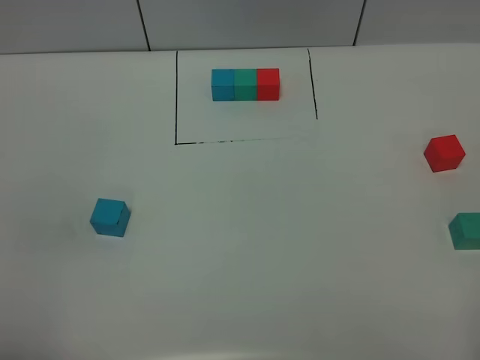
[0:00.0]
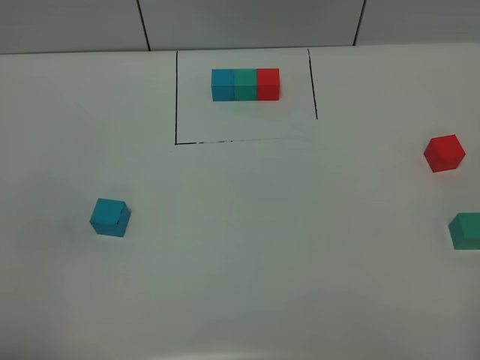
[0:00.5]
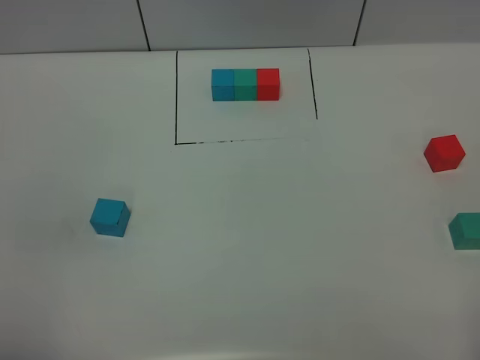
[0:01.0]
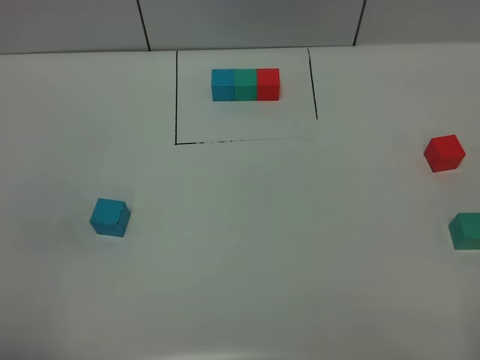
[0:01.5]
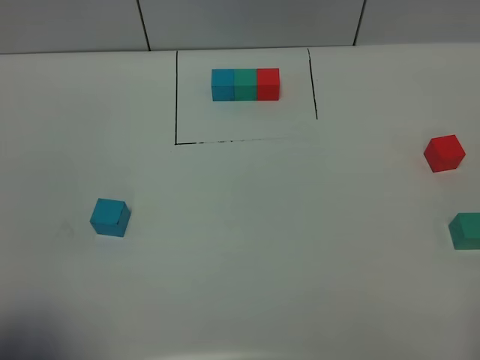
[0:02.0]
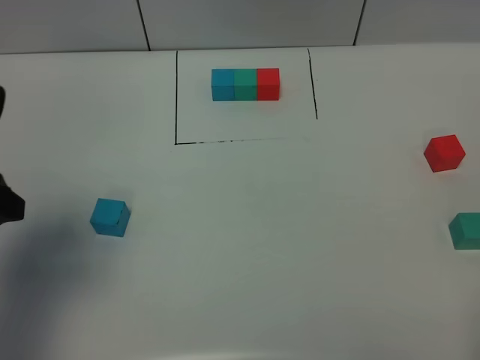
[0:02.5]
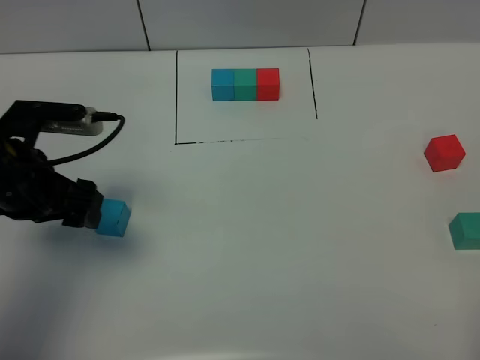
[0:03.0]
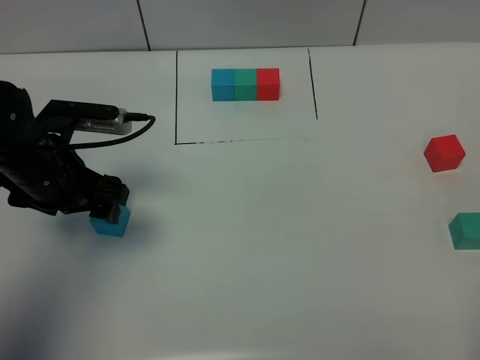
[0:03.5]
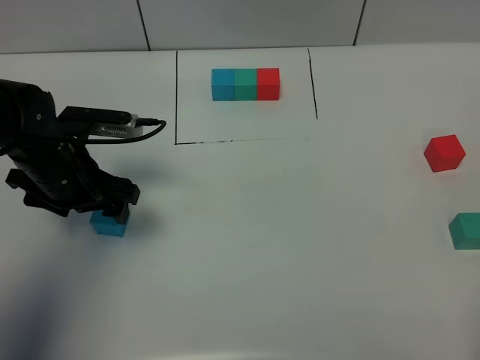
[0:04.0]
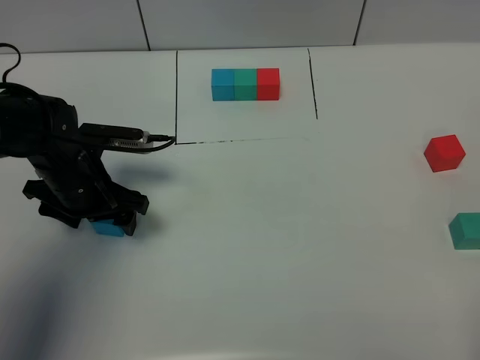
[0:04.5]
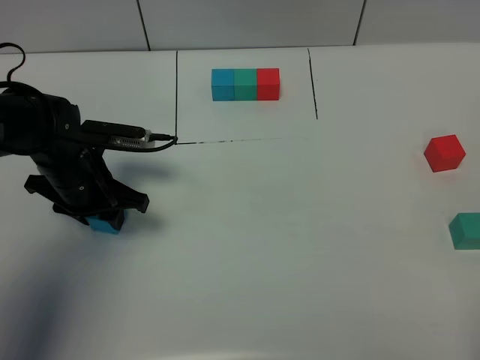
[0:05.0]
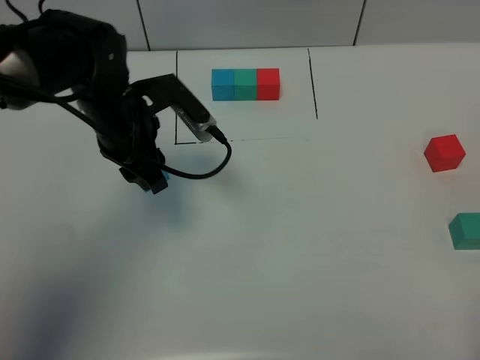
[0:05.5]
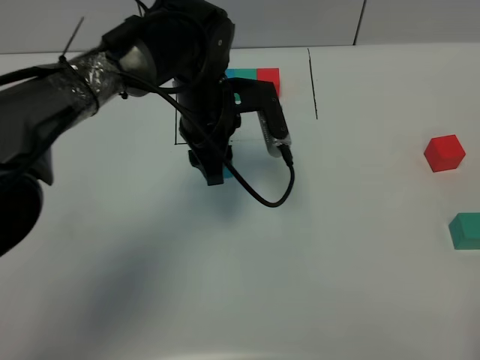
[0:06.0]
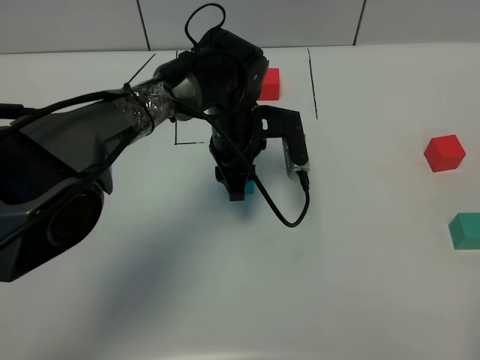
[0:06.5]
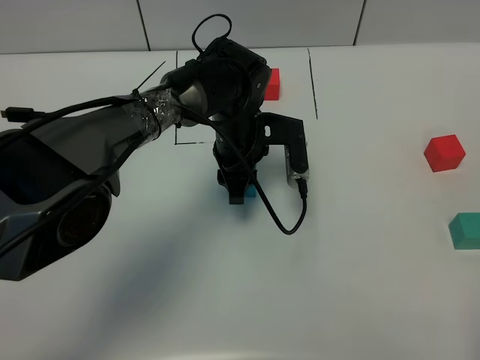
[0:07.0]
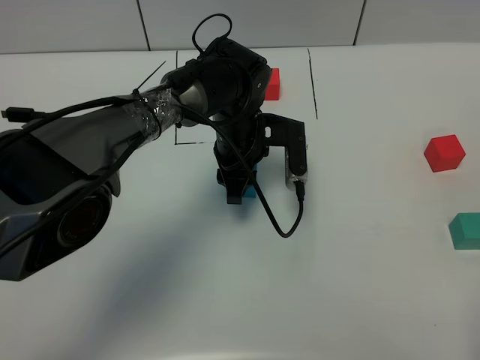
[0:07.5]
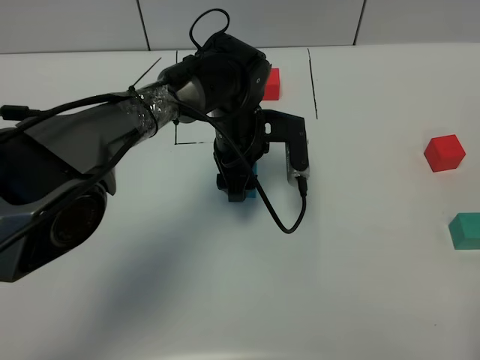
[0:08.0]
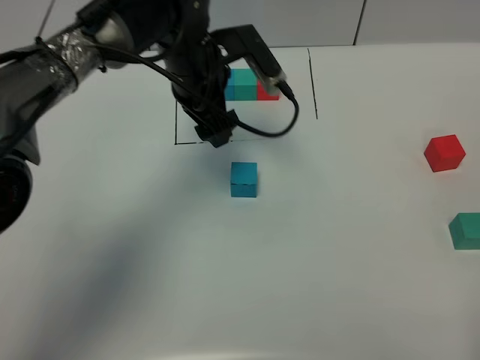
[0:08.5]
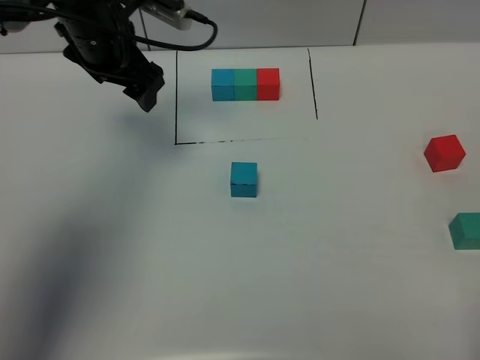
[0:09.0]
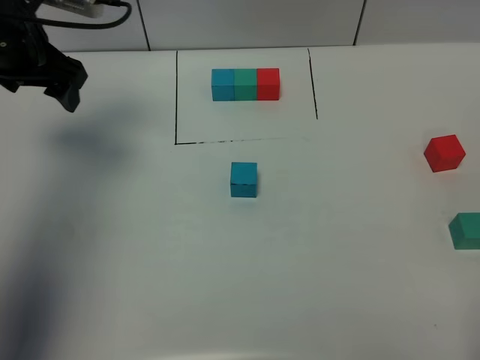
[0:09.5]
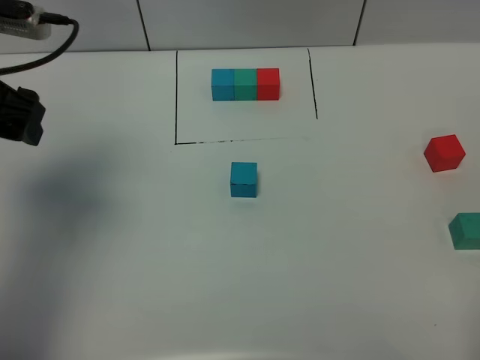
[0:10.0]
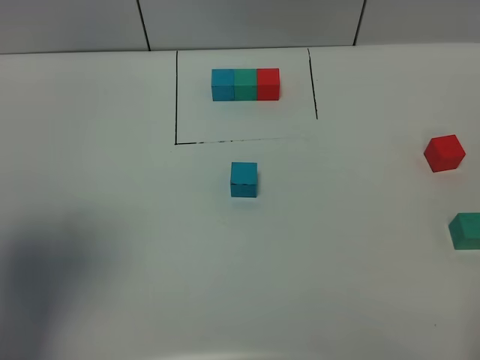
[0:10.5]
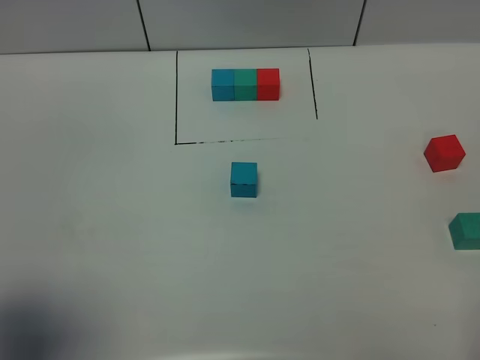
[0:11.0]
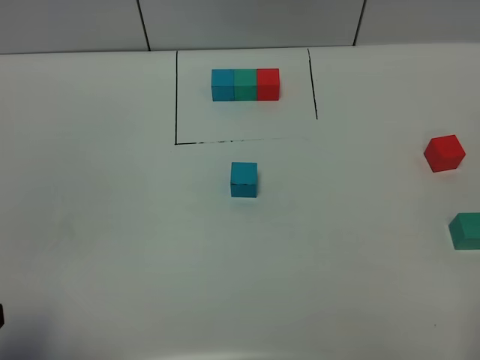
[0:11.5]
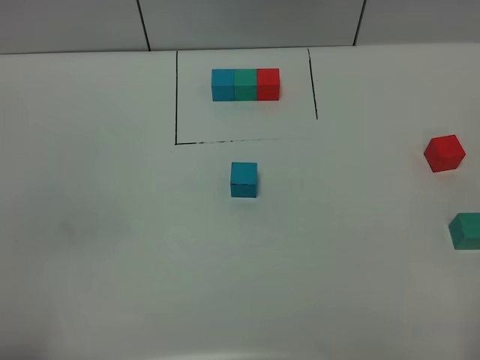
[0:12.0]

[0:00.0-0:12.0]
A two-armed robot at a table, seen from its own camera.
Task of the whole recording: According to the building block template in front, assemble the scattered blocks together.
Step, 0:00.0 to 0:07.5: Put the blue build block in the center of the table.
0:00.0 to 0:02.0: The left gripper heads forward, covering about 5 cm.
0:02.0 to 0:04.0: The left gripper heads forward and downward, covering some 30 cm.
0:04.0 to 0:06.0: The left gripper goes some 20 cm to the right and forward, and closes its fingers.
0:06.0 to 0:08.0: The left gripper changes place by approximately 5 cm, and opens.
0:08.0 to 0:10.0: The left gripper goes some 30 cm to the left and upward.
0:10.0 to 0:12.0: The left gripper moves backward, roughly 30 cm.

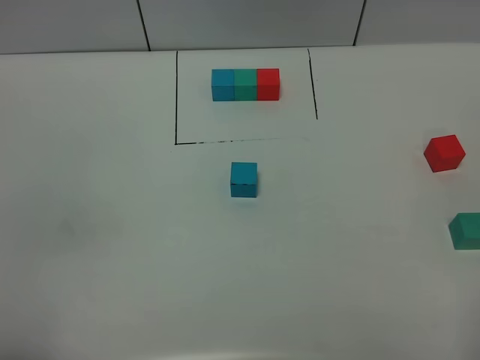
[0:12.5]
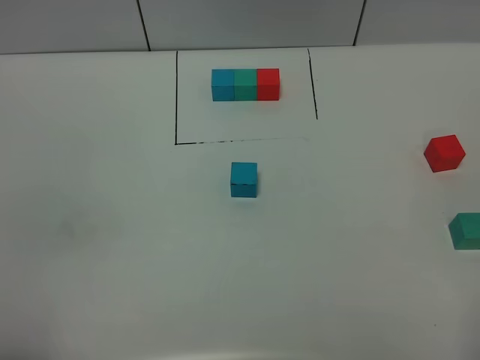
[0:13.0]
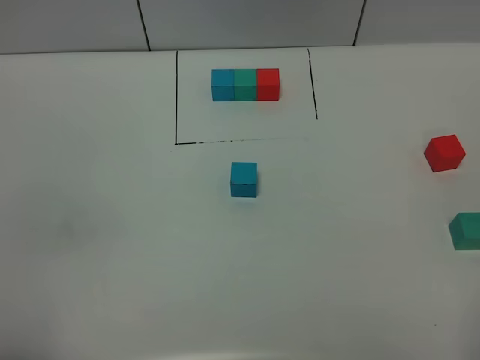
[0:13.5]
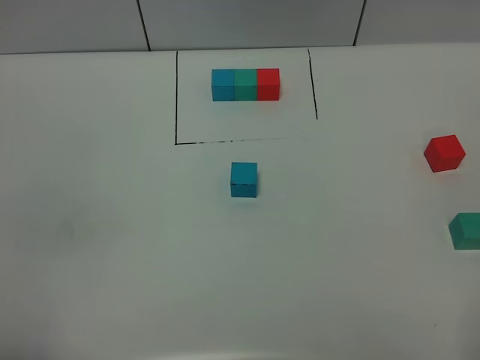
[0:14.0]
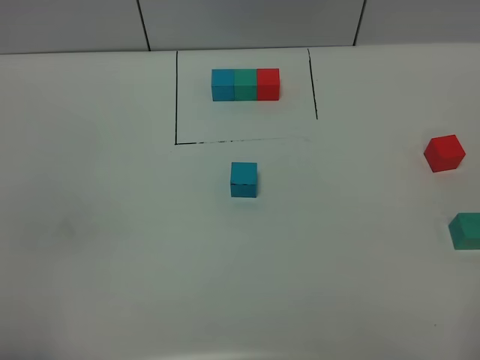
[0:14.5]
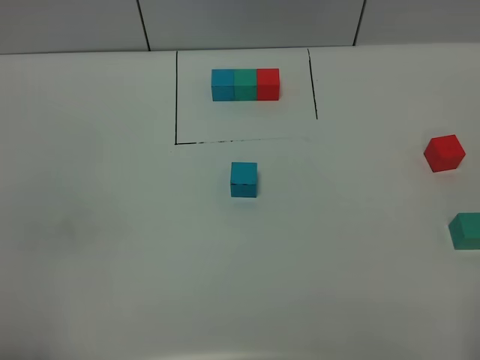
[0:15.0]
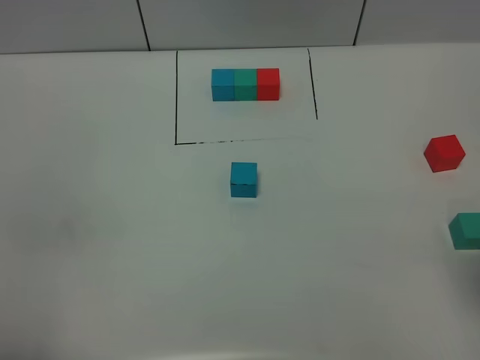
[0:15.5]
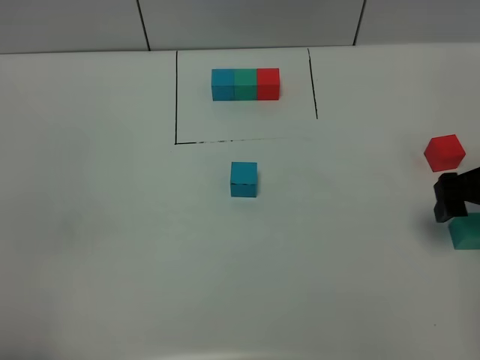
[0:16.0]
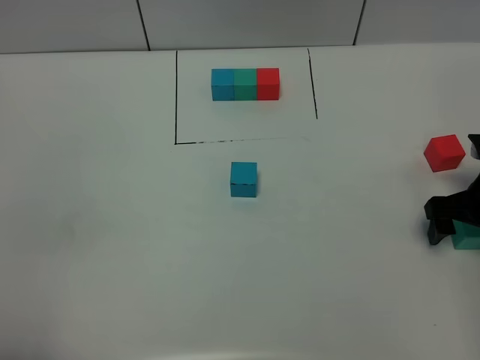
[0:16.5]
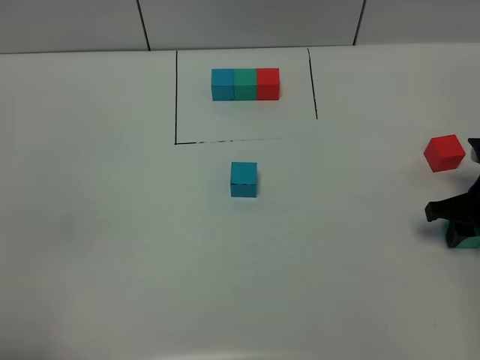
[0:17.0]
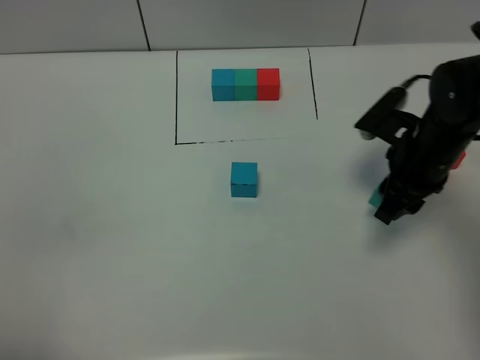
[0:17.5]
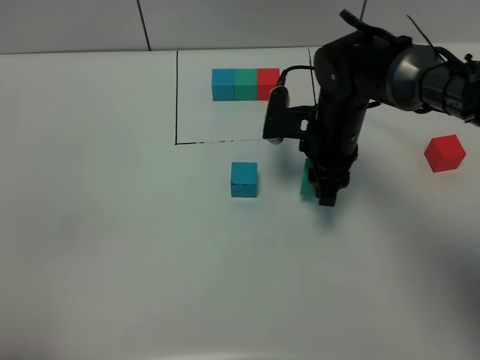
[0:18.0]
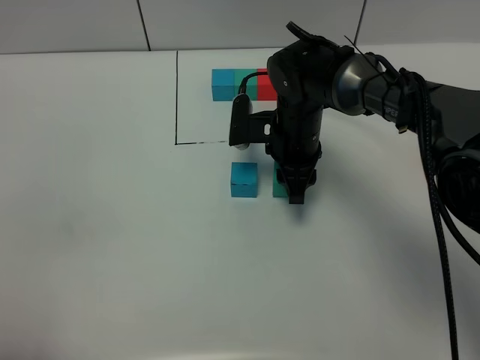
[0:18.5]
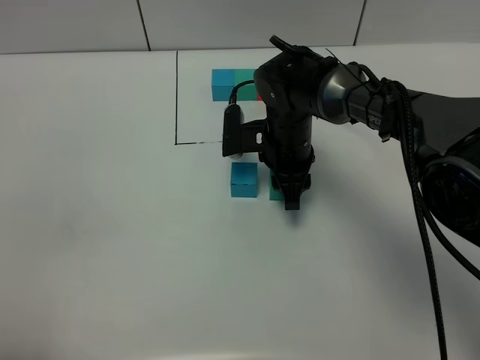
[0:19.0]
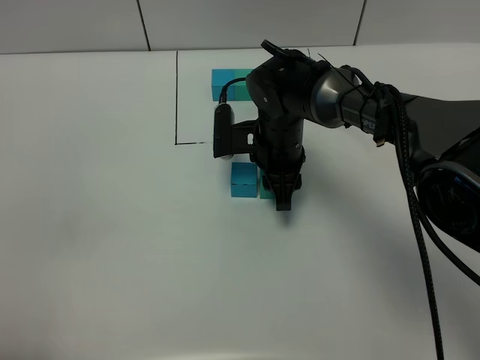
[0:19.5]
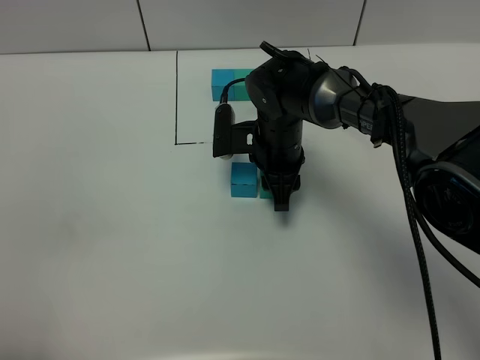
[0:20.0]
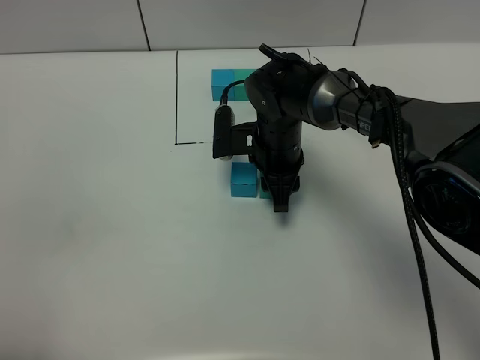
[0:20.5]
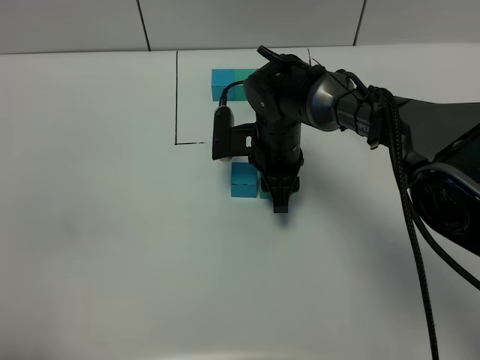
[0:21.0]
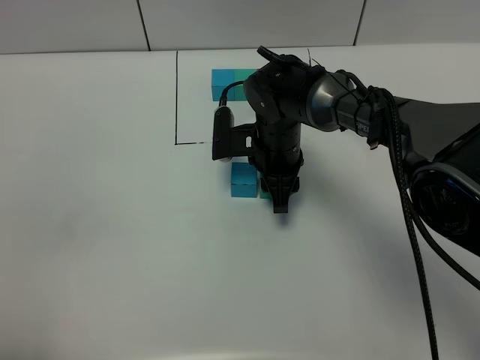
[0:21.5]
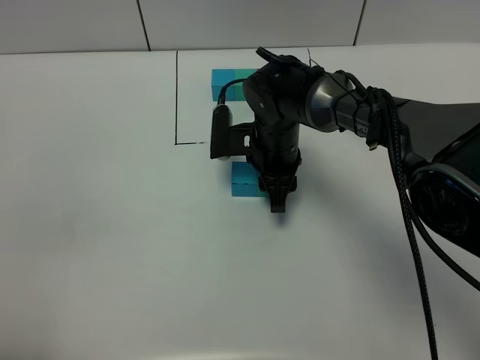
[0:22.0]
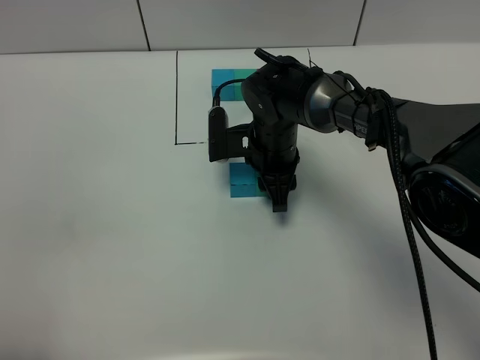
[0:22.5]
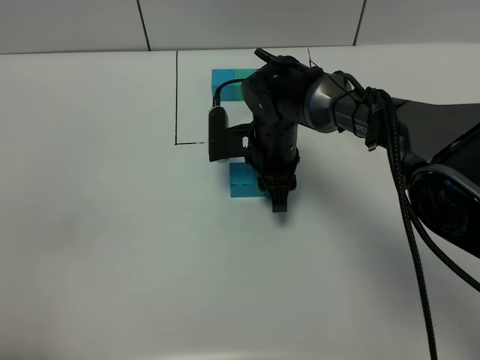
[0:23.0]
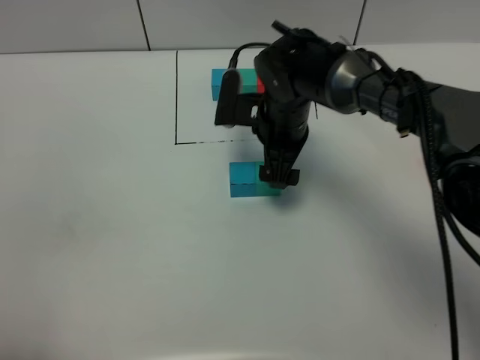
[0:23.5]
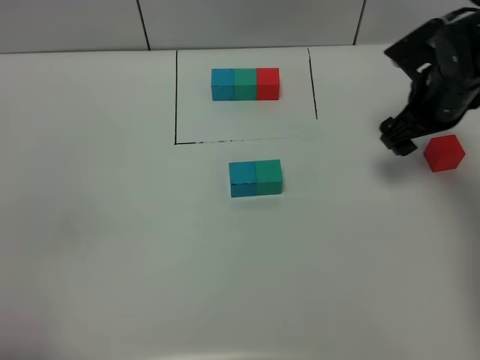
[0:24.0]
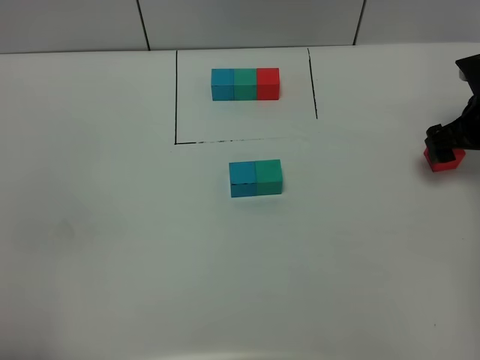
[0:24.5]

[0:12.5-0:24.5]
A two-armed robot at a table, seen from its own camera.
Task of the whole recording: According to the building block template in front, assemble the scattered blocks together.
Step, 0:12.5 to 0:23.0: Put the green build block on the right of the blue build block.
0:12.5 to 0:14.5: Neither gripper changes place.
0:14.5 to 0:16.5: The right gripper heads forward and downward, covering about 35 cm.
0:16.5 to 0:18.5: The right gripper travels to the left by approximately 25 cm, and closes its fingers.
0:18.5 to 0:20.5: There are only small adjustments of the grippers.
0:20.5 to 0:22.5: The two grippers keep their place.
0:22.5 to 0:24.5: The right gripper travels to the right by some 30 cm, and opens up.

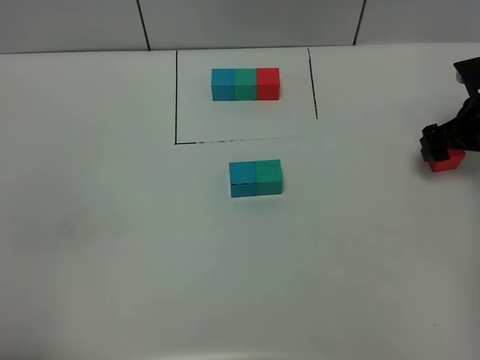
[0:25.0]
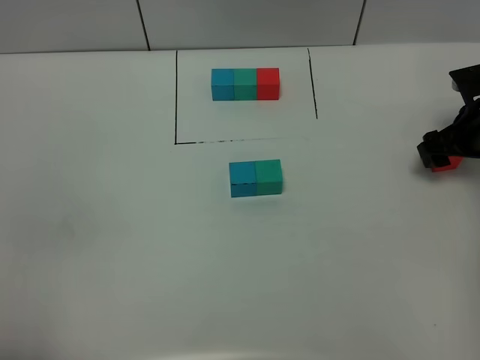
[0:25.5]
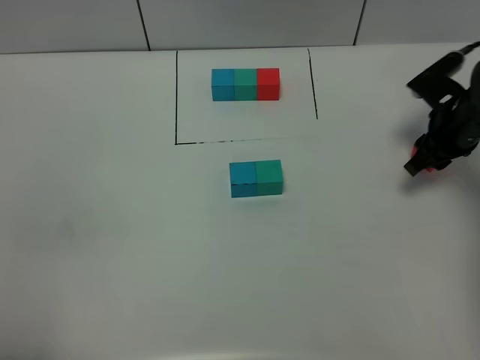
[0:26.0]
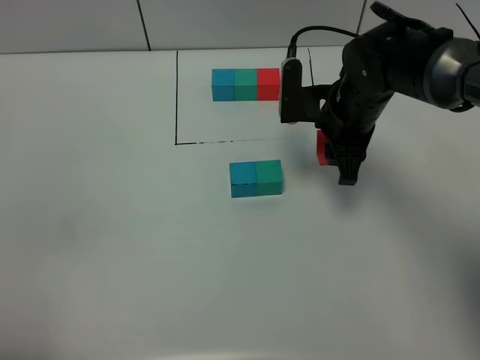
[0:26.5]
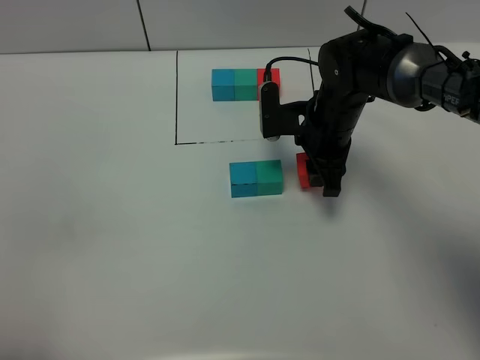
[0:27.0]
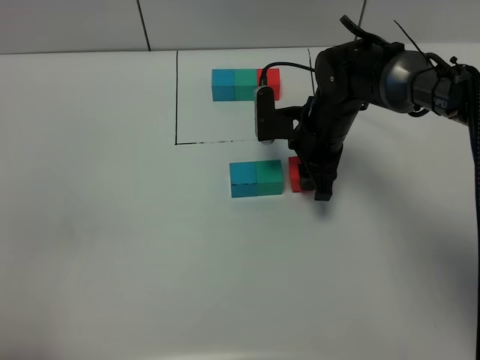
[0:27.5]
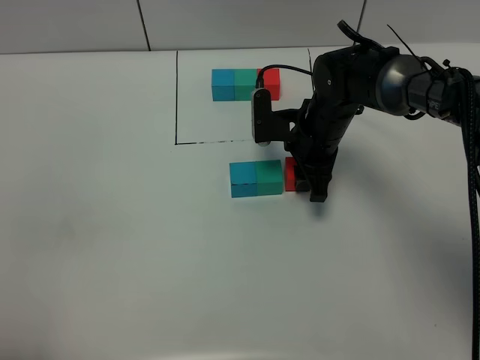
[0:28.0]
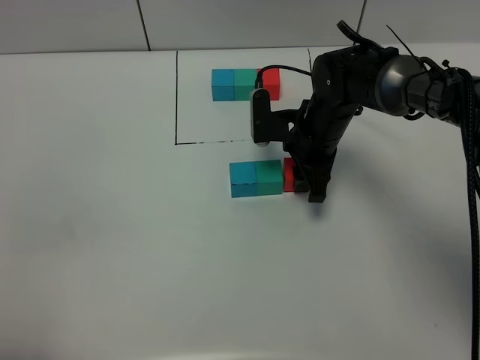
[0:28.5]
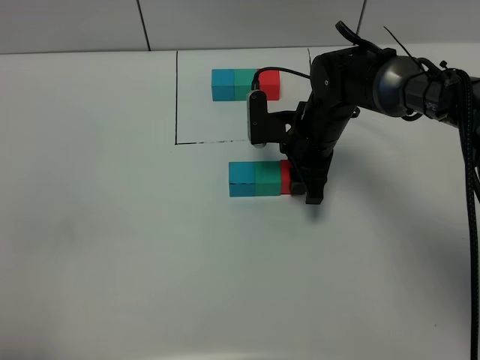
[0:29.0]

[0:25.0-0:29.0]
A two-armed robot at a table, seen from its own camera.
Task of the whole recording: According to the building block template in front, assemble the scattered blocks together.
0:25.0 to 0:27.0: The right gripper shifts approximately 20 cm to the left, and closes its fingers.
0:27.0 to 0:29.0: There are only small adjustments of the grippers.
